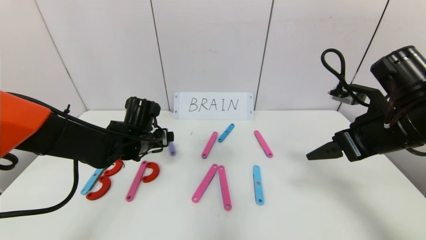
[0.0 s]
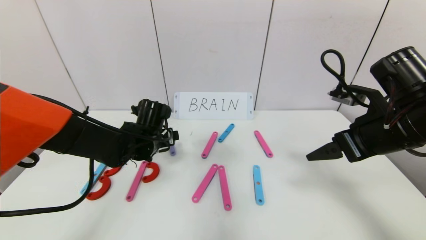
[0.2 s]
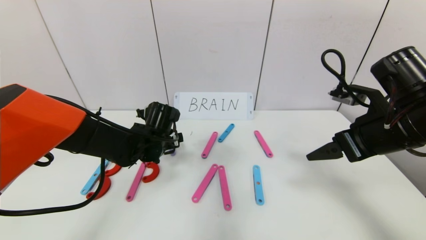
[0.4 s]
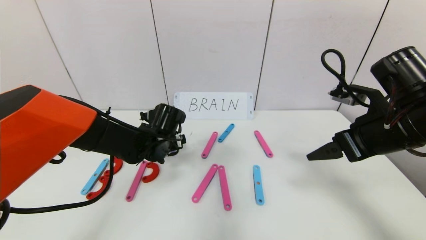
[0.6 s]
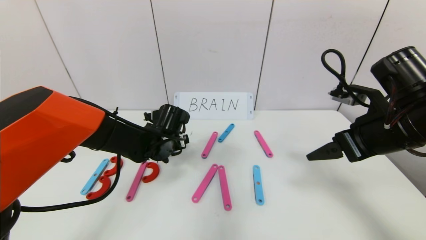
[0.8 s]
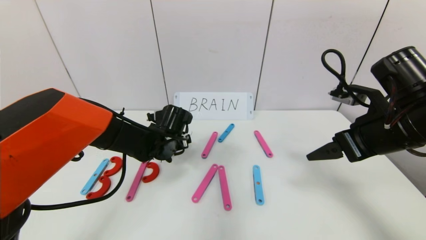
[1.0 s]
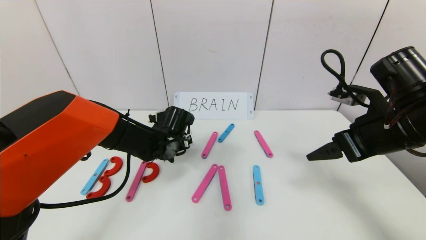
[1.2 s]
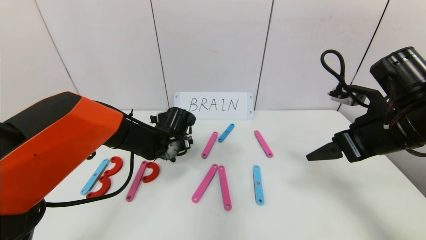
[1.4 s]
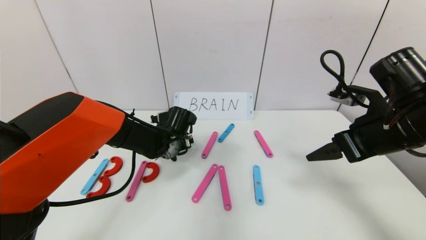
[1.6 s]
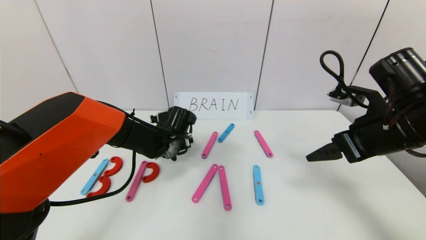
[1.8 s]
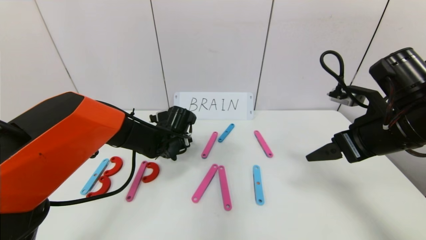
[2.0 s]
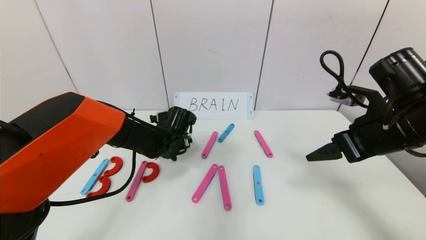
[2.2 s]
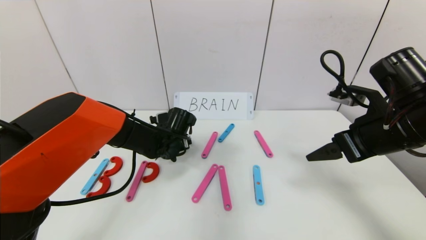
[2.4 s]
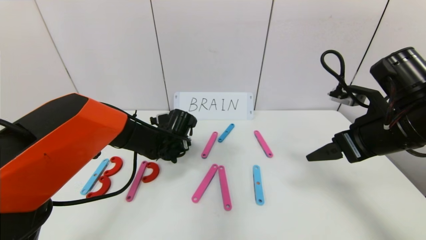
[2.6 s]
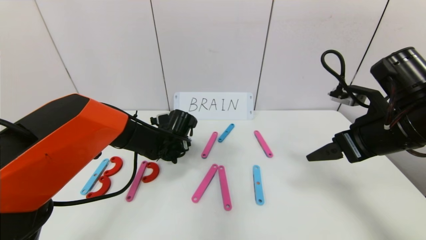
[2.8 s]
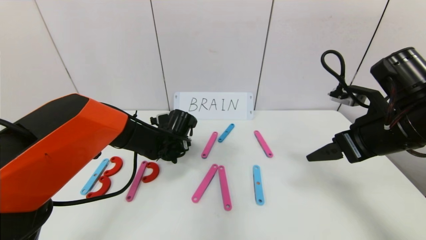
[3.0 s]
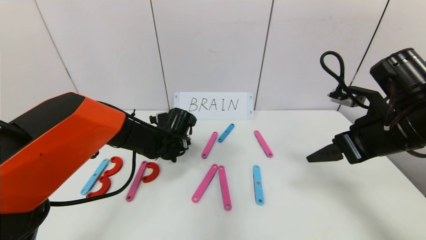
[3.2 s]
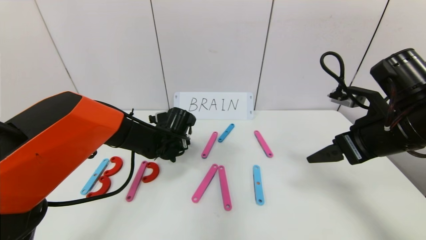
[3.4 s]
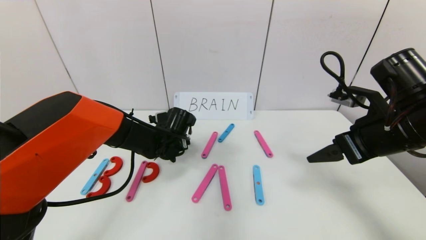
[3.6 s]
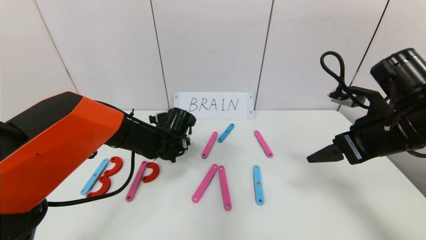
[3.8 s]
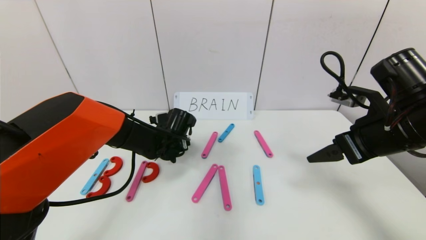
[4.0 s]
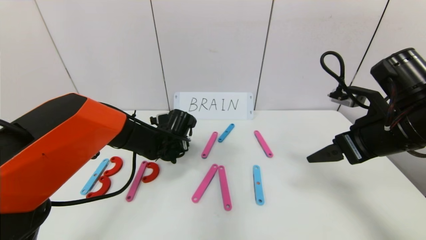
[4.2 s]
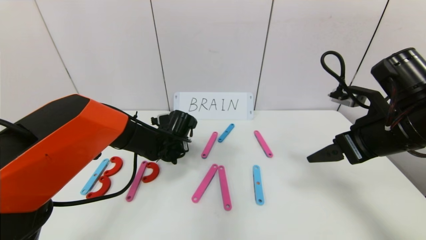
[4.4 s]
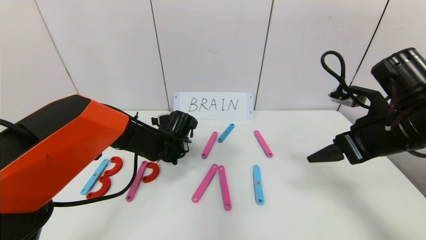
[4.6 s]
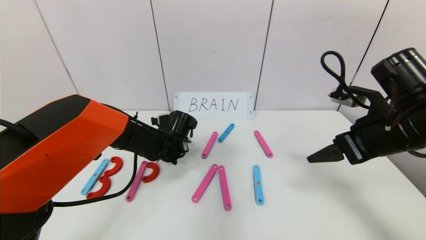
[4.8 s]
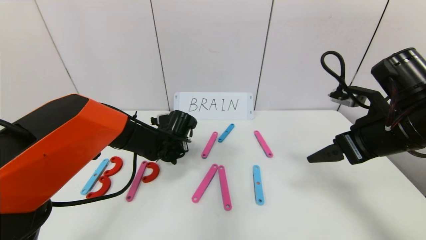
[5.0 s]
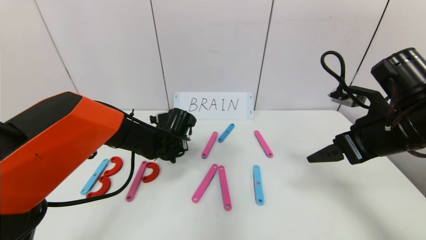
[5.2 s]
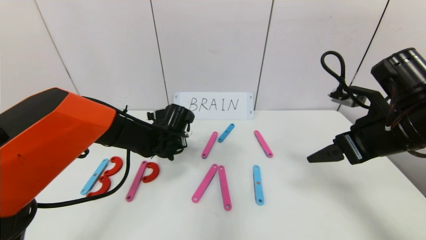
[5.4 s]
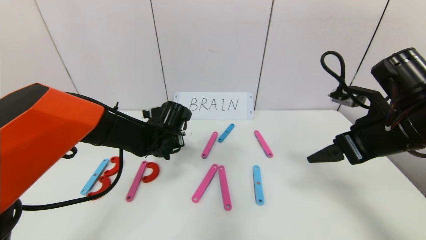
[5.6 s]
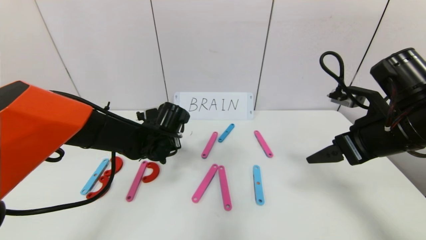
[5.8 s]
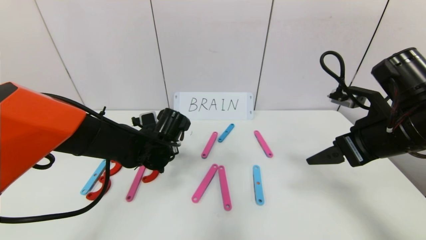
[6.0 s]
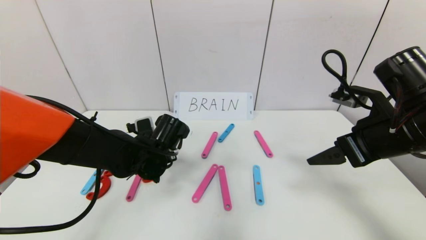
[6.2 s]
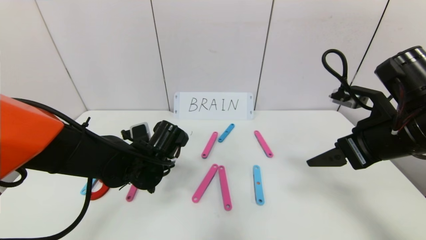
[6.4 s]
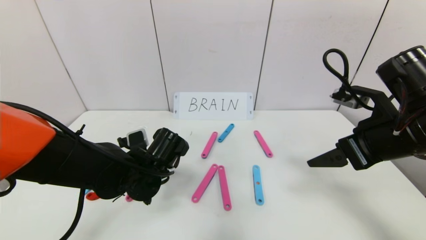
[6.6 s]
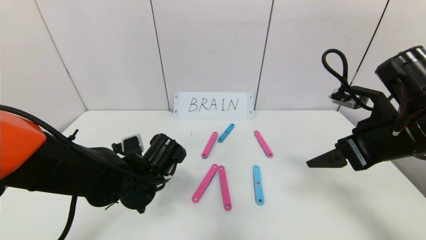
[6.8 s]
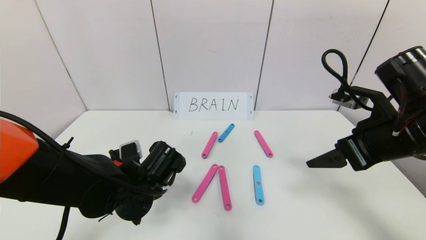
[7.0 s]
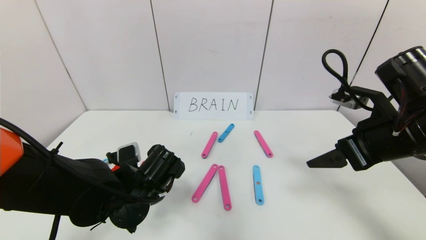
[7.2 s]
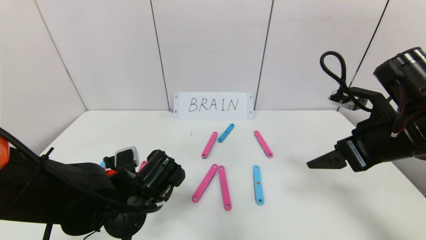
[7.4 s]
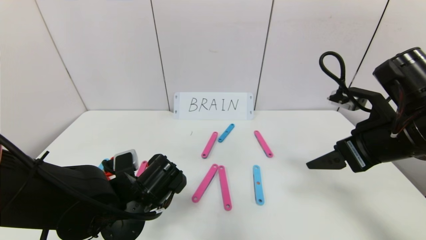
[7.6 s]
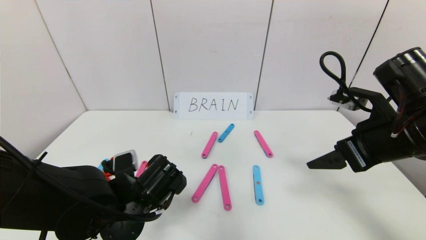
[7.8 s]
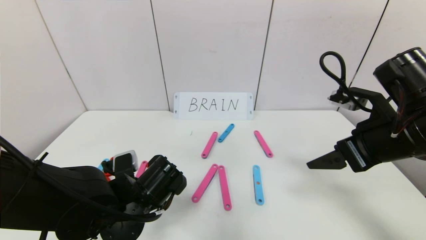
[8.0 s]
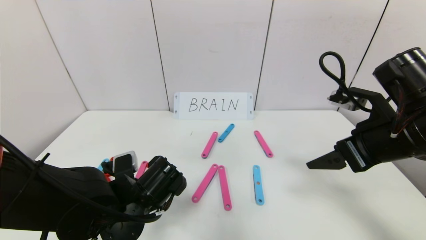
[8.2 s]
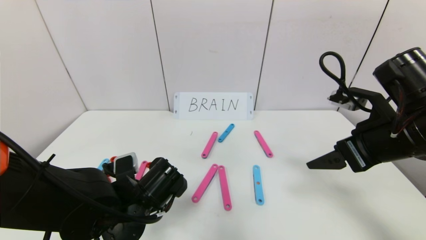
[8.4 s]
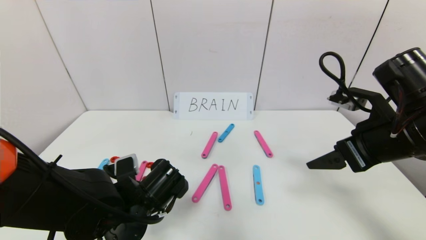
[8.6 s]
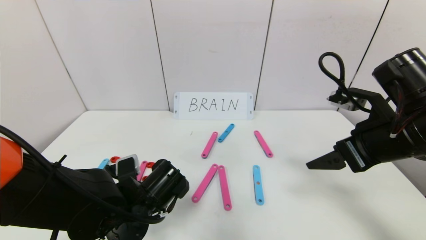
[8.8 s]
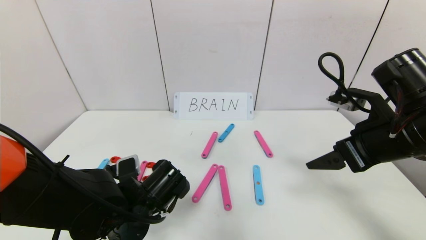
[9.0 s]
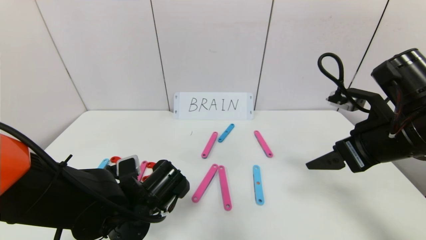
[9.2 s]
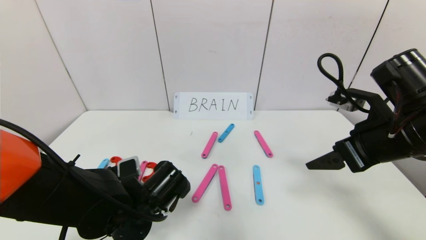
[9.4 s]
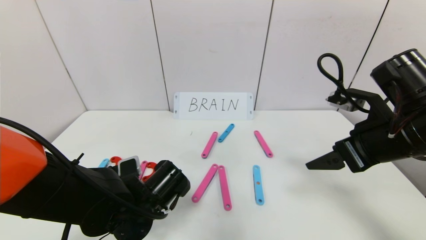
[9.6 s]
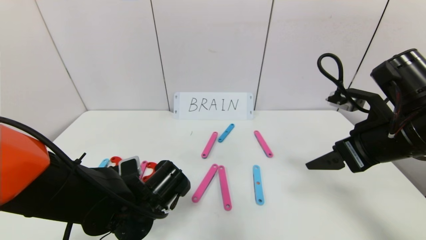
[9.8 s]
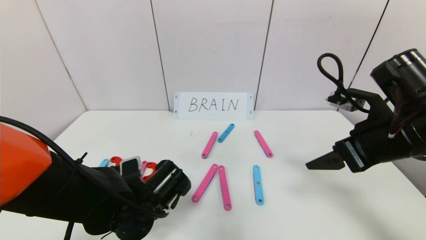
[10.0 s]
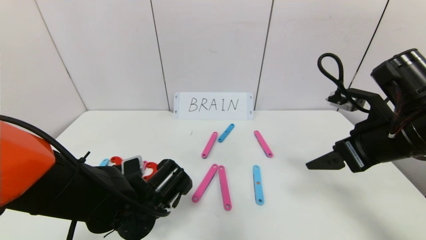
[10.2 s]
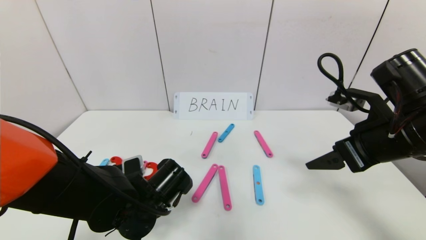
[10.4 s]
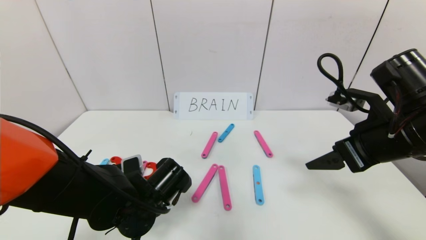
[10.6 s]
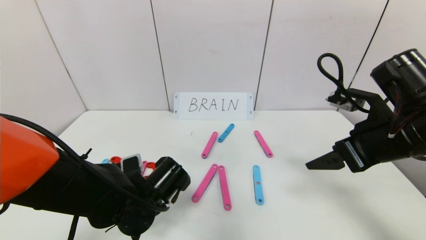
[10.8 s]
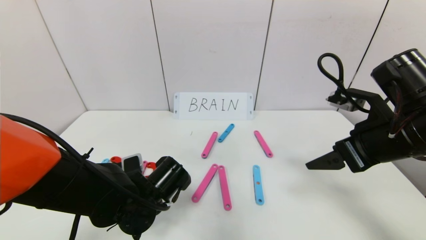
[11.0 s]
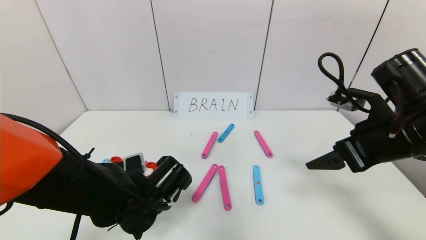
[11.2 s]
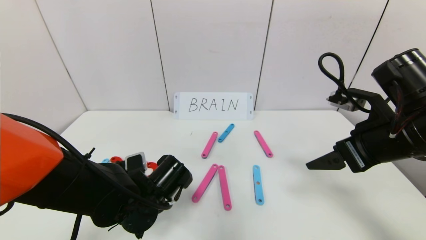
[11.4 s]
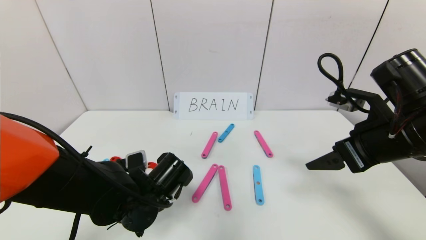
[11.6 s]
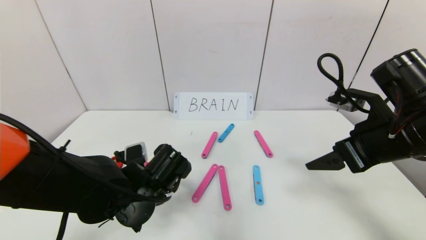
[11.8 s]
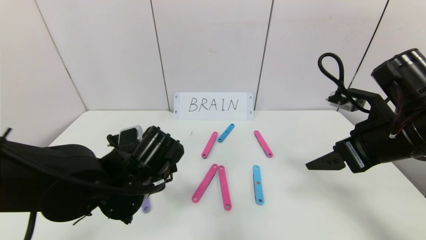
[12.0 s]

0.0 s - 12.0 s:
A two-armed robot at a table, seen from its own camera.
Task of the whole recording: rearrange the word baai as brain.
Step, 0.0 s - 11.2 s: Place the character R between first character B and third character A.
0.0 s - 1.6 s: The left gripper goes about 5 cm to the right.
1.6 s - 3.0 s: Both grippers stay about where they are.
3.0 s - 4.4 s: The left gripper closes up.
4.4 s - 6.0 s: The left gripper shifts some 5 cm backward, and closes.
6.0 s - 7.6 s: The left gripper is displaced backward by about 10 cm.
7.6 s - 9.0 s: Both grippers stay put.
9.0 s - 10.4 s: The grippers stay close to where they were, moving slightly.
10.4 s - 12.0 s: The left gripper heads upward, covering some 5 cm, and opens up.

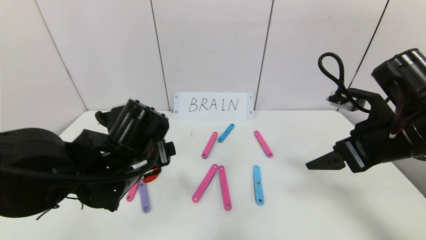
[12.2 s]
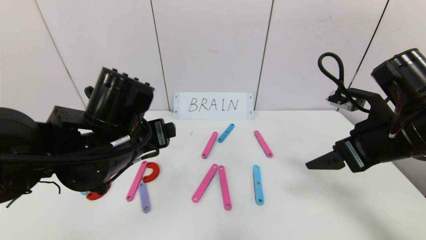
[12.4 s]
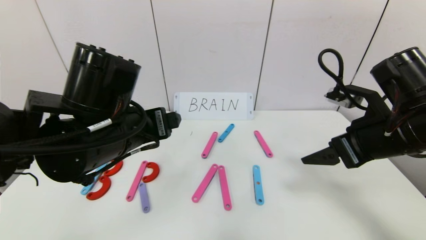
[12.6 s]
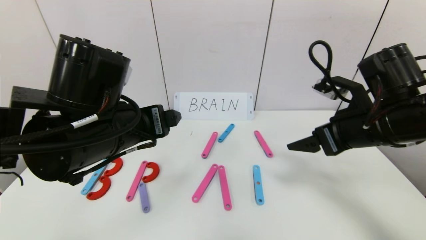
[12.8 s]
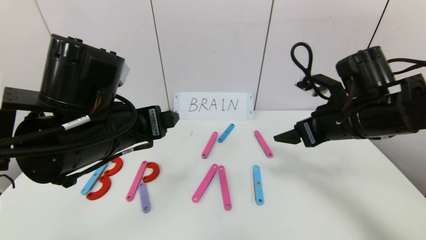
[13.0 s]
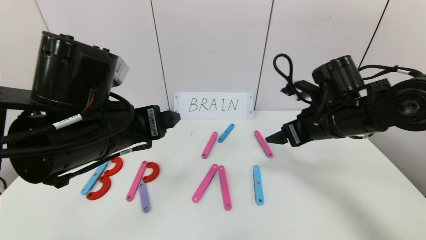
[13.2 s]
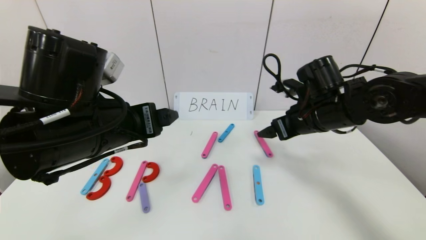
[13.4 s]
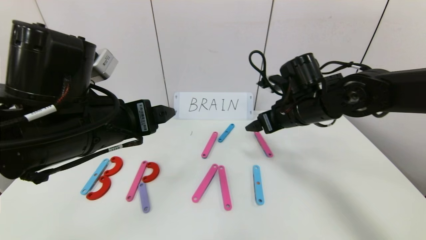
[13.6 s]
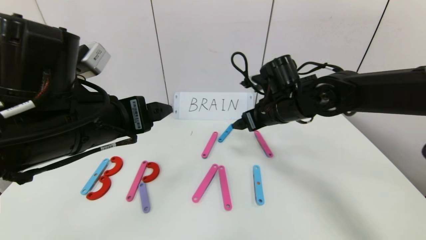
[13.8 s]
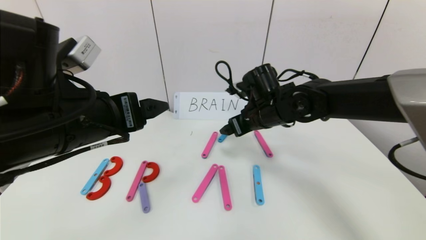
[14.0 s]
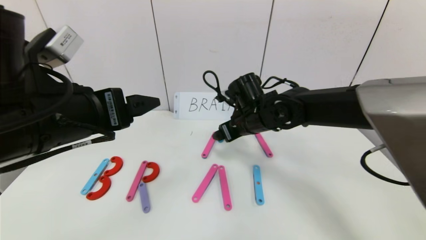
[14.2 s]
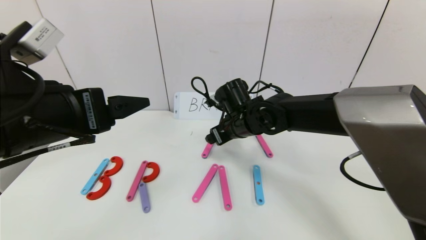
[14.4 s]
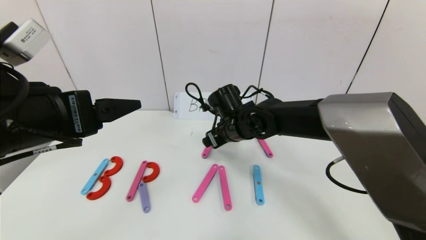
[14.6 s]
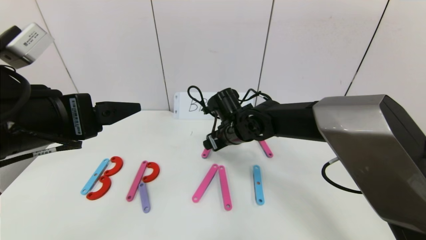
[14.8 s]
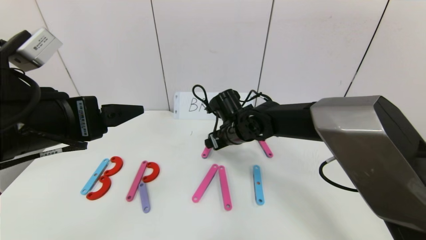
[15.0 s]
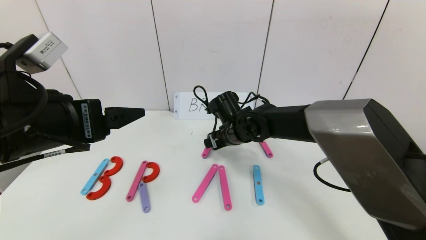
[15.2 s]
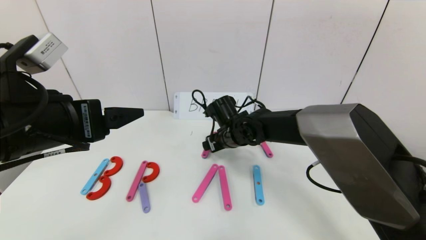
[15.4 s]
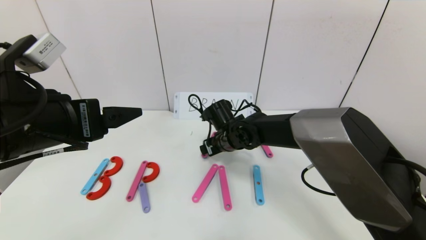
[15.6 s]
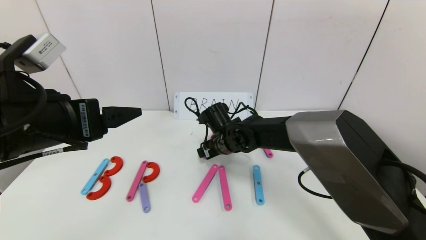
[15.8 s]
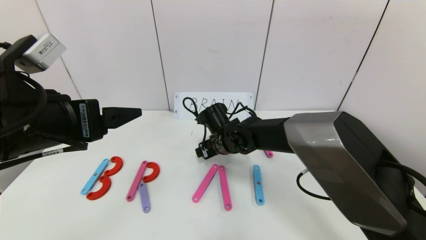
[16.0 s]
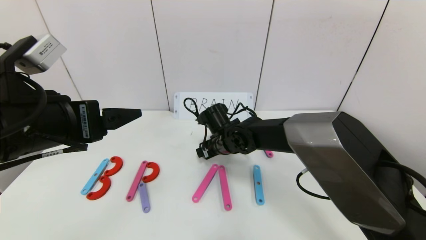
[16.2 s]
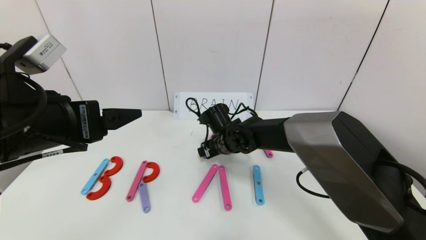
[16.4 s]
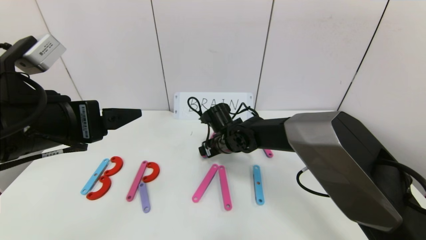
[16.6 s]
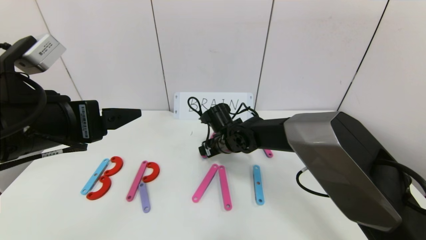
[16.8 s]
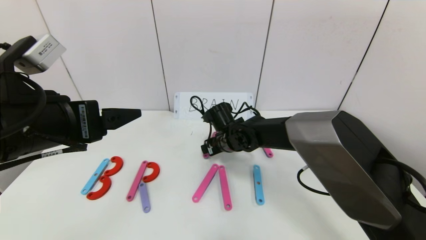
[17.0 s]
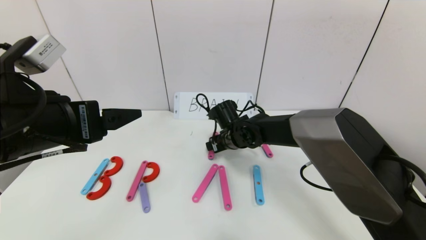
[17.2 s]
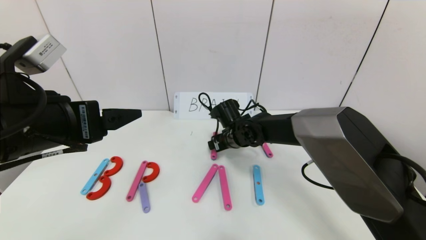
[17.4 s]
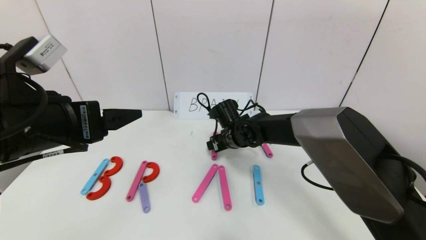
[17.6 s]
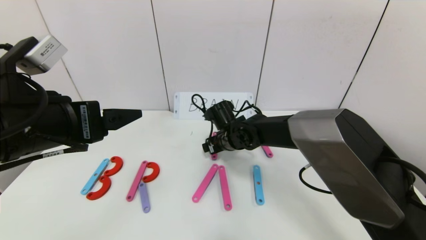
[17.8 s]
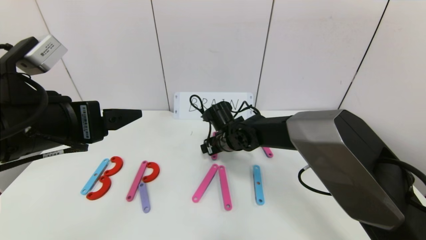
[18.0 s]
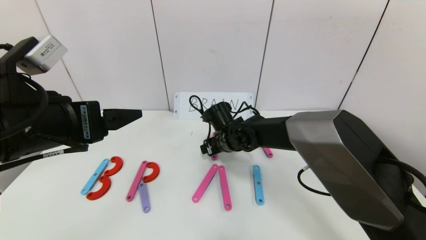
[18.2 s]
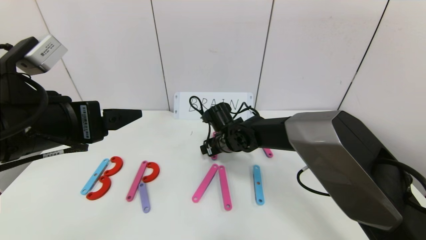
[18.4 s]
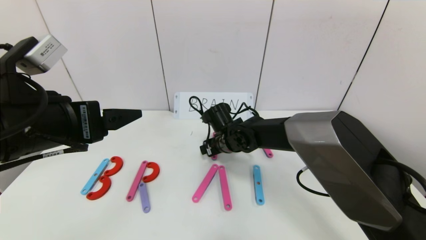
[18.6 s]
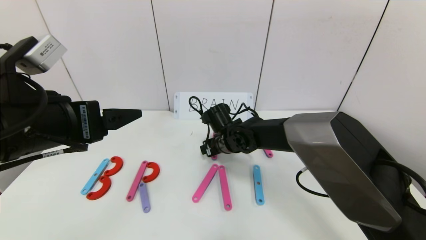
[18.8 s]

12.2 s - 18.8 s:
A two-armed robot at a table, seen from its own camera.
Task of the whole recording: rearrange the word baai as brain.
12.2 s - 13.8 s: The right gripper travels forward and to the left by some 20 cm. Meanwhile the left gripper heads upward, covering roughly 10 cm.
13.8 s - 15.4 s: The left gripper shifts by approximately 5 cm. Meanwhile the right gripper goes approximately 15 cm to the left and downward.
15.4 s - 18.8 s: There are only small adjustments of the grippers.
